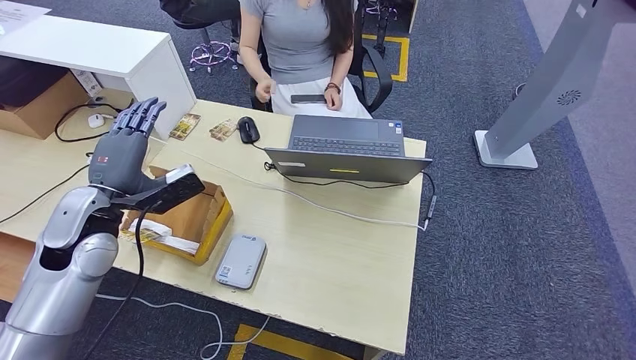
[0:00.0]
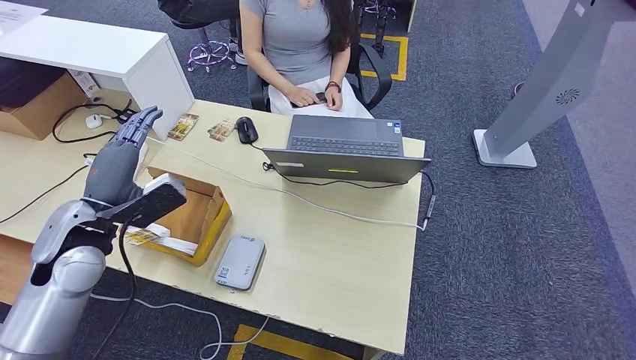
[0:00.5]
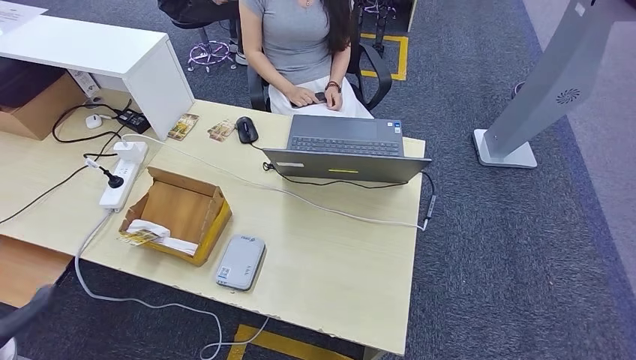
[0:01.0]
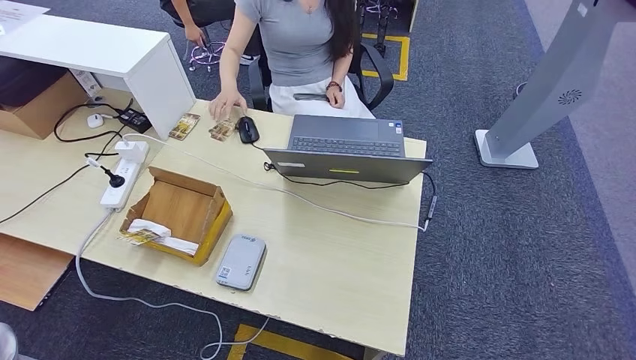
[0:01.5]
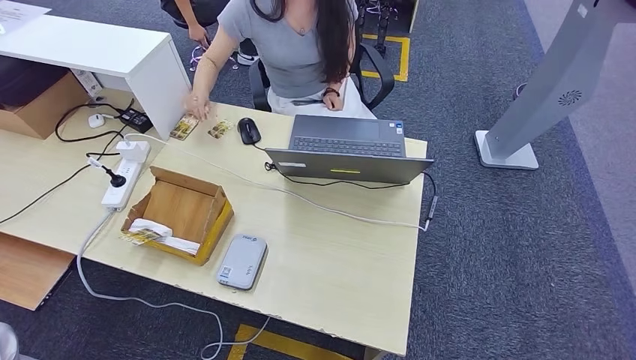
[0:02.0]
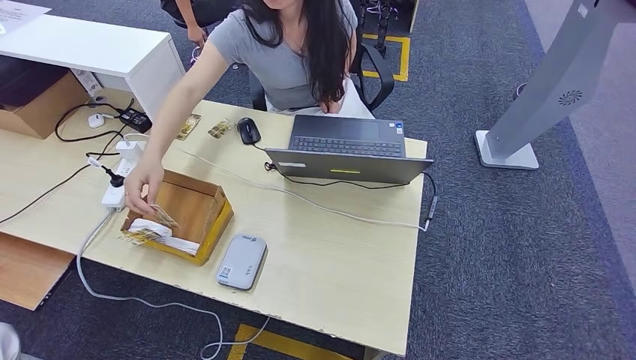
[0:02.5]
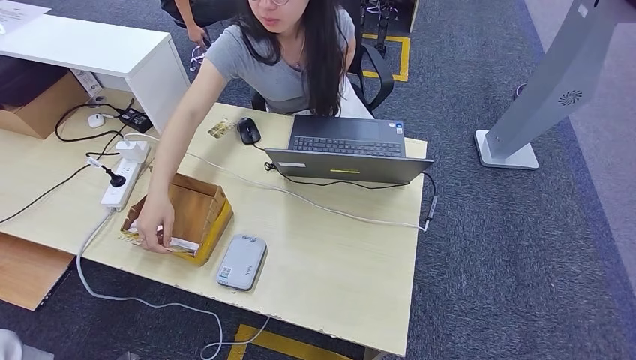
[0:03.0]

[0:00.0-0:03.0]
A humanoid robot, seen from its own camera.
Step, 0:00.0 to 0:03.0: Hand the room key to the person.
0:00.0 to 0:01.5: The left hand heads backward and downward, covering some 35 cm.
0:01.5 to 0:03.0: The left hand is displaced downward and to the right by about 25 cm.

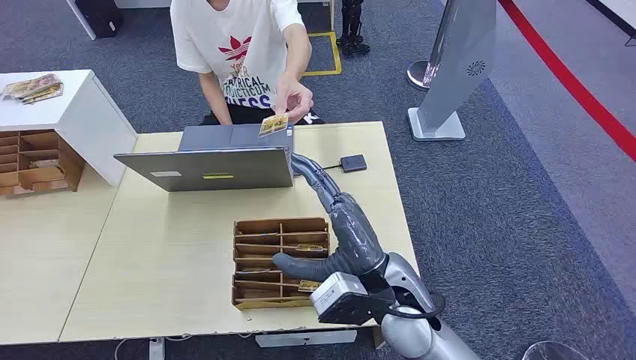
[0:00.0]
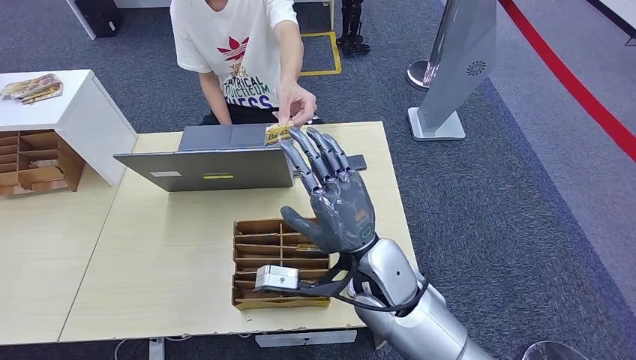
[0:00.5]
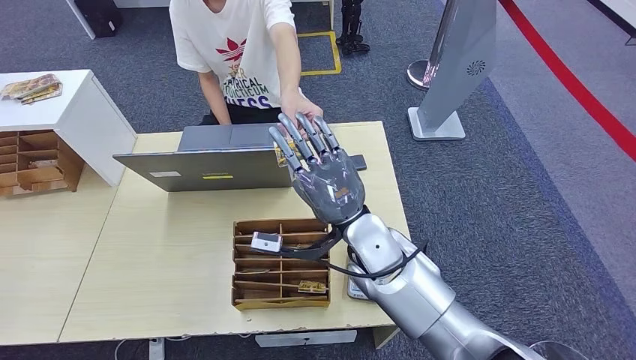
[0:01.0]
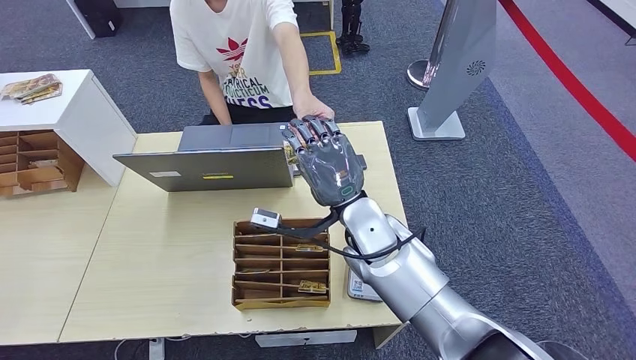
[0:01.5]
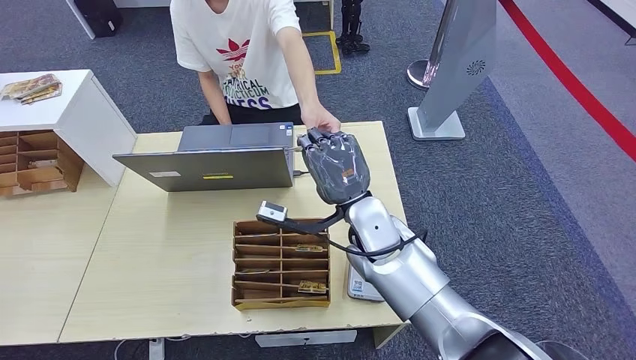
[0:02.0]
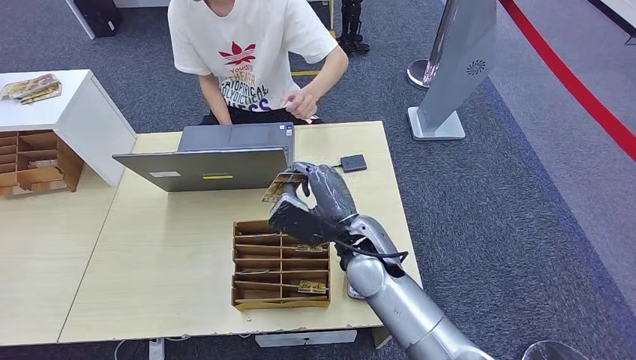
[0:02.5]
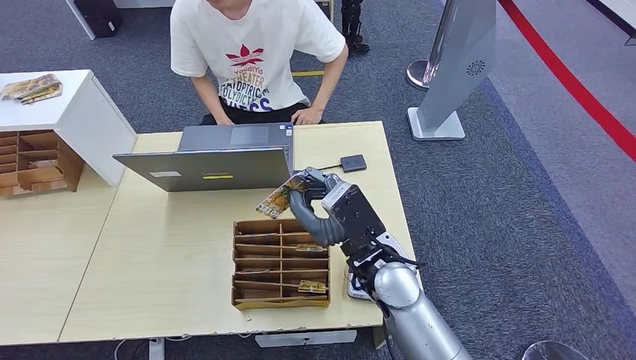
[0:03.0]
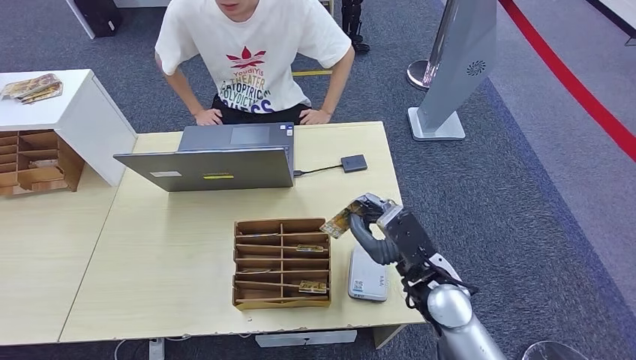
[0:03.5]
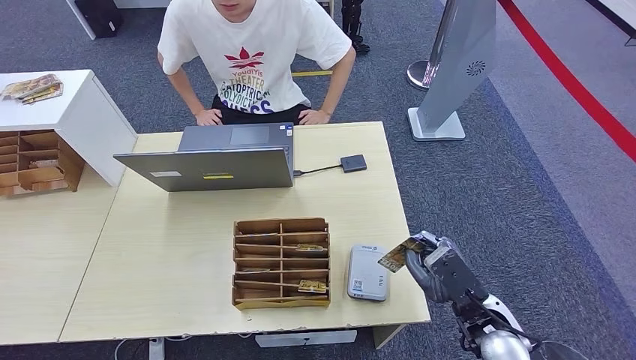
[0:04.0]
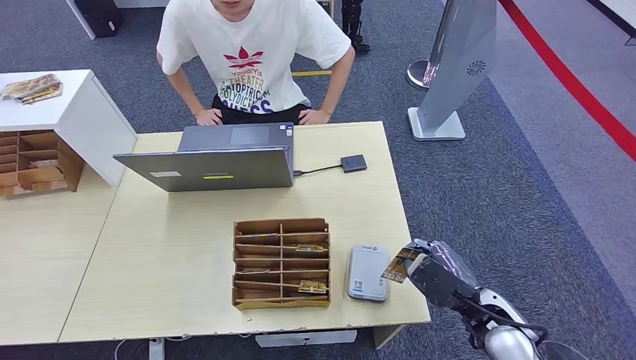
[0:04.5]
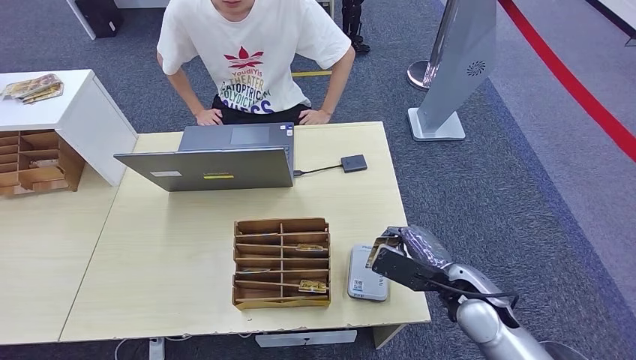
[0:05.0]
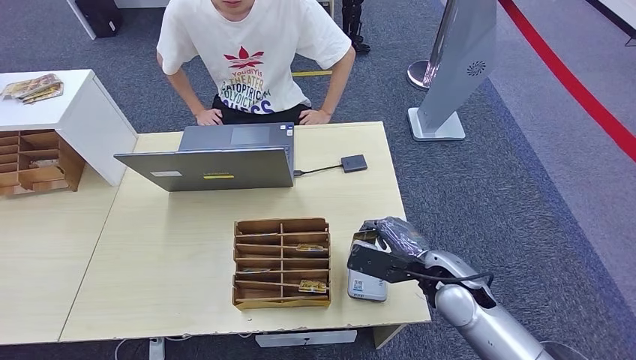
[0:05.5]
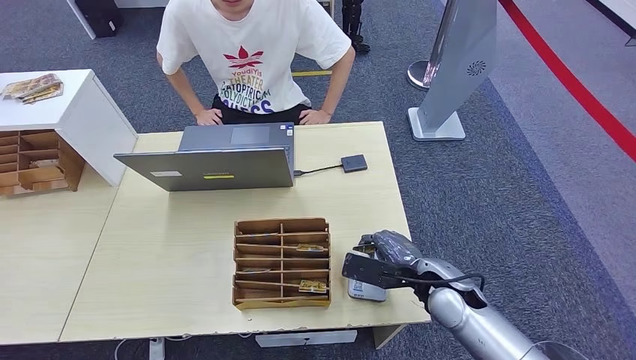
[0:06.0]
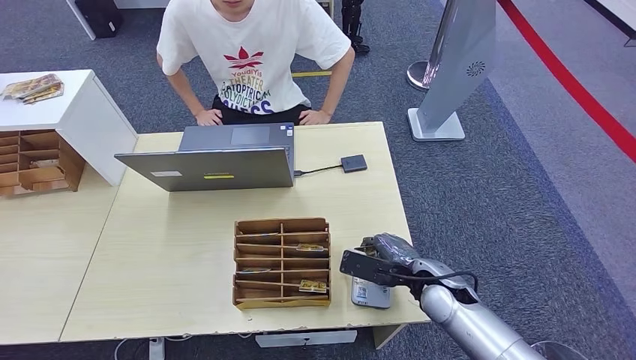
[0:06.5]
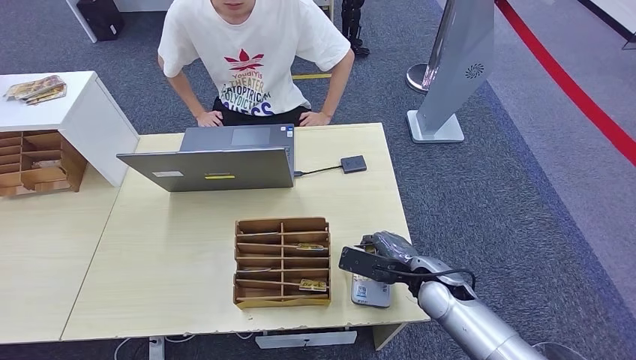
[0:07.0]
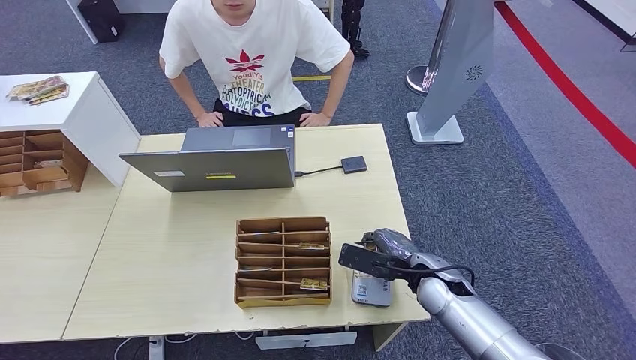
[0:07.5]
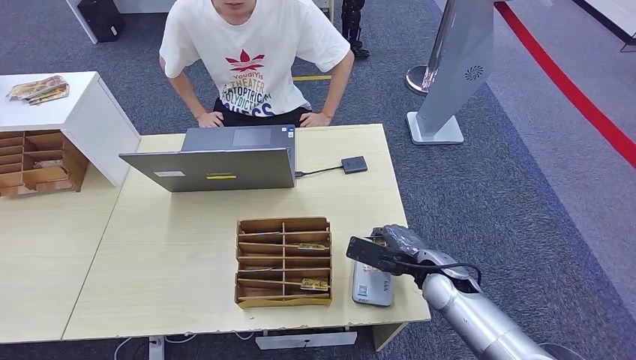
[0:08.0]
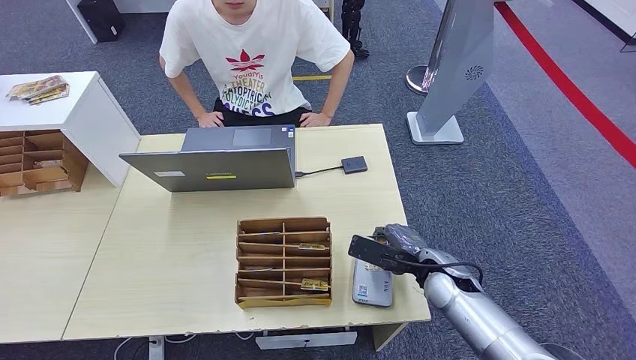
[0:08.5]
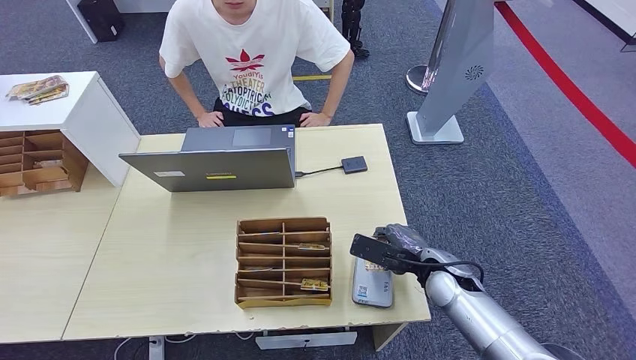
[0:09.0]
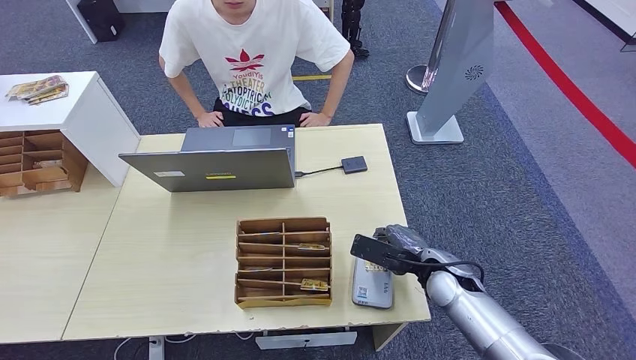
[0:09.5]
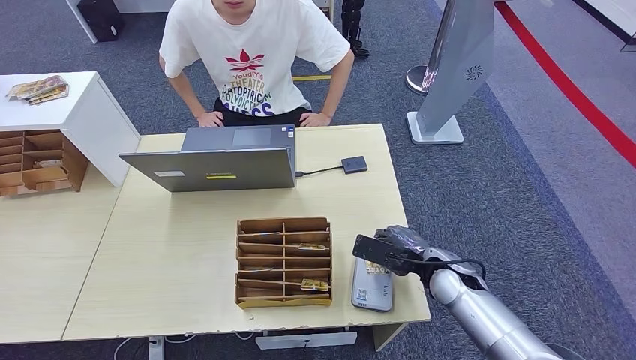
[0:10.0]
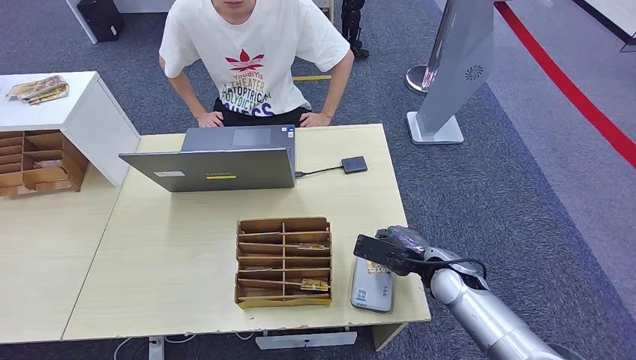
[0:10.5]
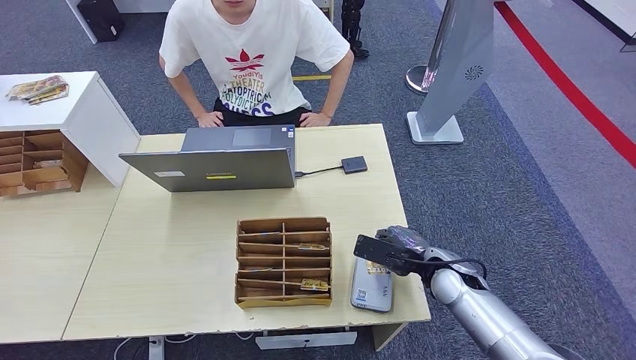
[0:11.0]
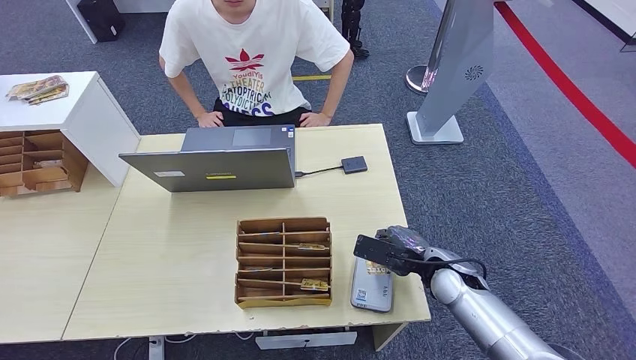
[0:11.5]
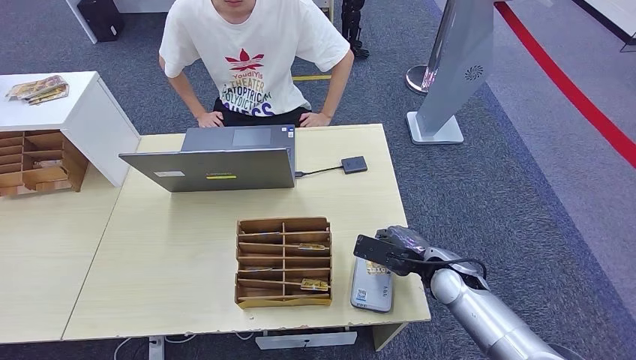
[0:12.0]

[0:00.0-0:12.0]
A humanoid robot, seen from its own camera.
Step, 0:00.0 to 0:01.5: Take the ID card from the person's hand.
Step, 0:02.0 to 0:04.0: Place the ID card on the card reader.
0:02.0 to 0:04.0: The right hand is displaced to the right, backward and downward by approximately 25 cm.
0:04.0 to 0:06.0: The right hand is displaced forward by approximately 5 cm.
0:06.0 to 0:08.0: The hands stay close to where they were, moving slightly.
0:08.0 to 0:10.0: The two hands keep their place.
0:10.0 to 0:12.0: Neither hand changes place.

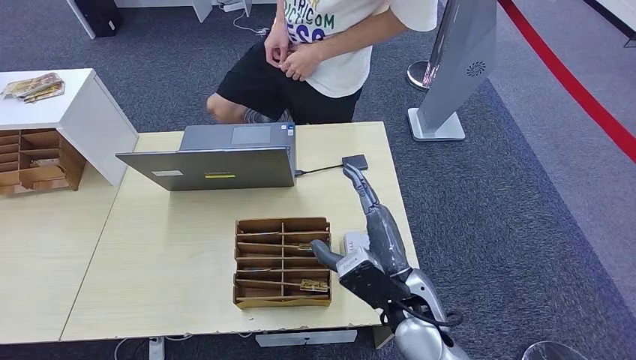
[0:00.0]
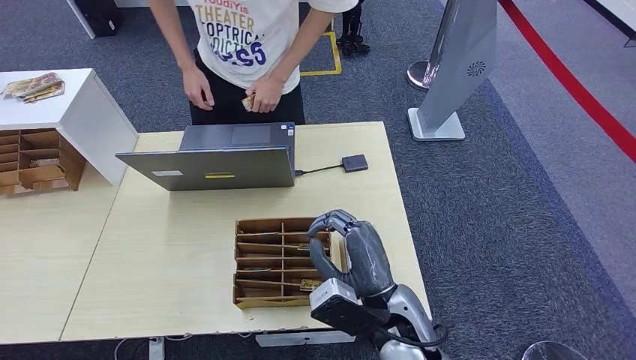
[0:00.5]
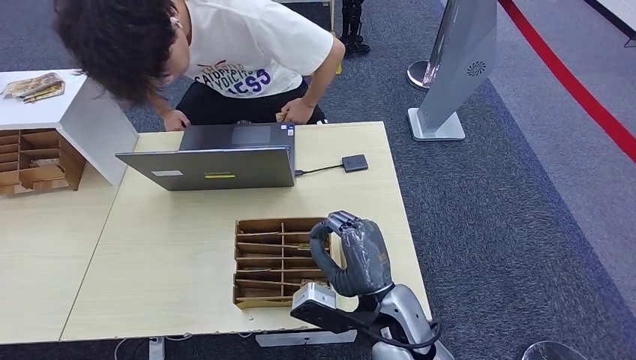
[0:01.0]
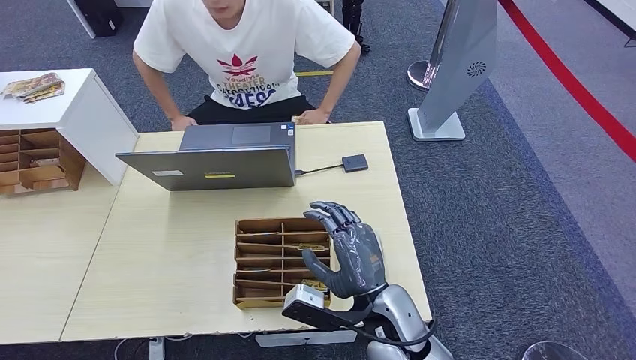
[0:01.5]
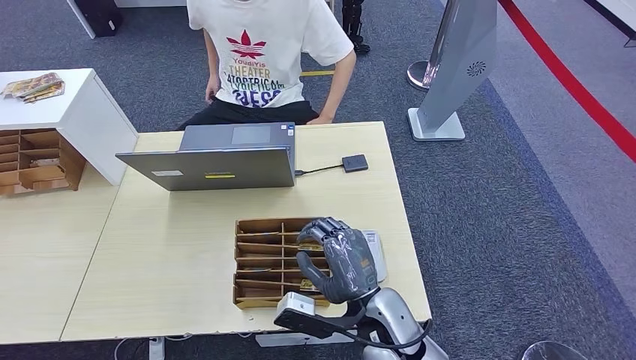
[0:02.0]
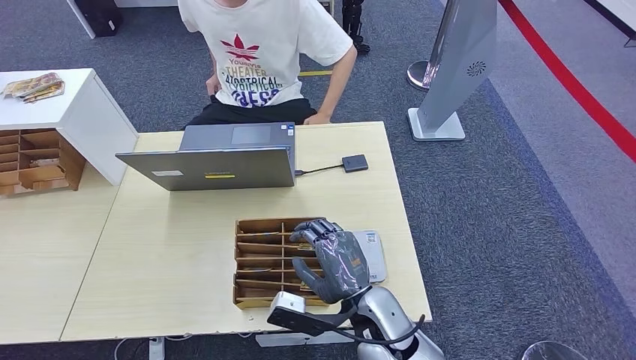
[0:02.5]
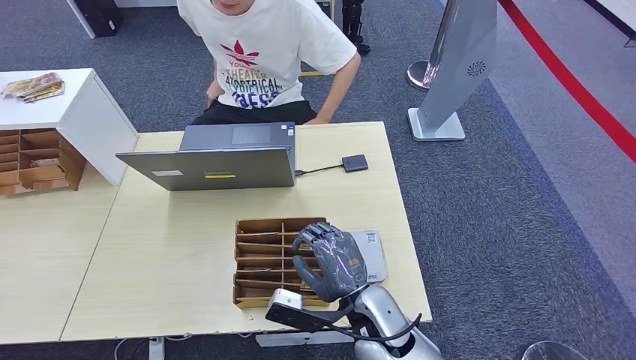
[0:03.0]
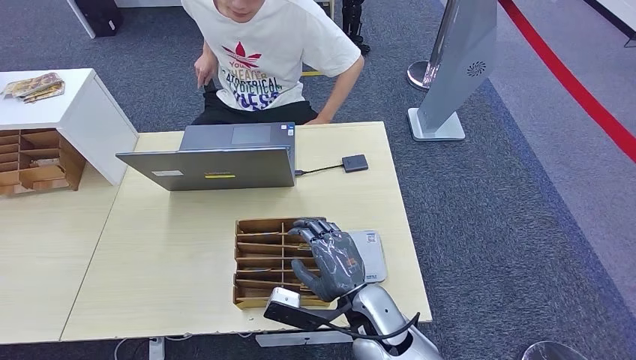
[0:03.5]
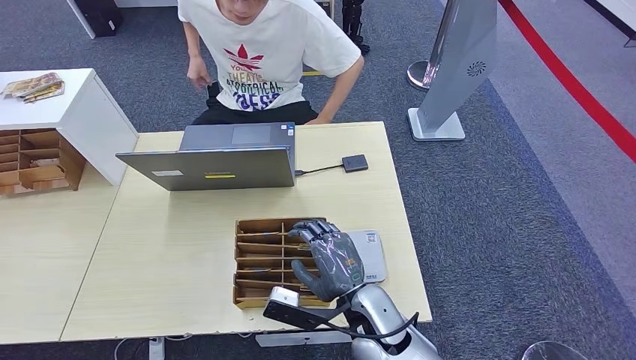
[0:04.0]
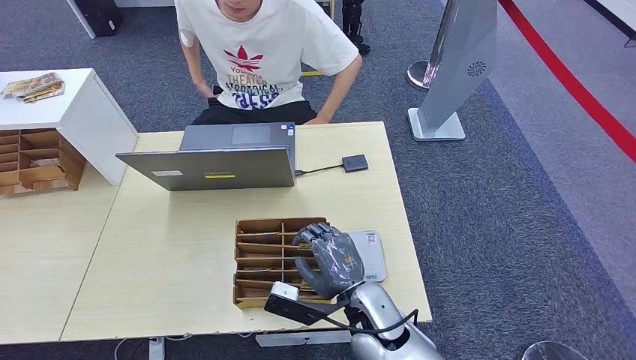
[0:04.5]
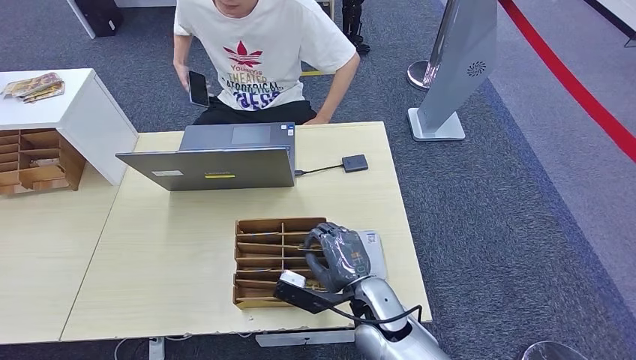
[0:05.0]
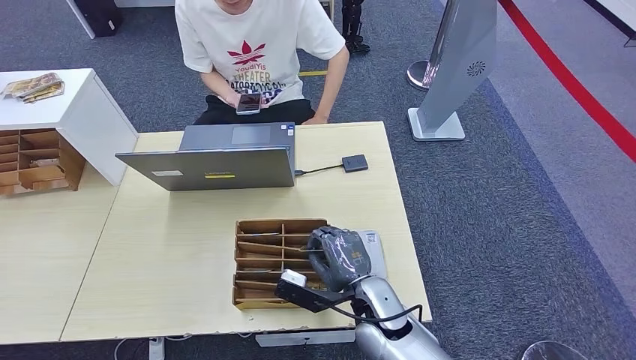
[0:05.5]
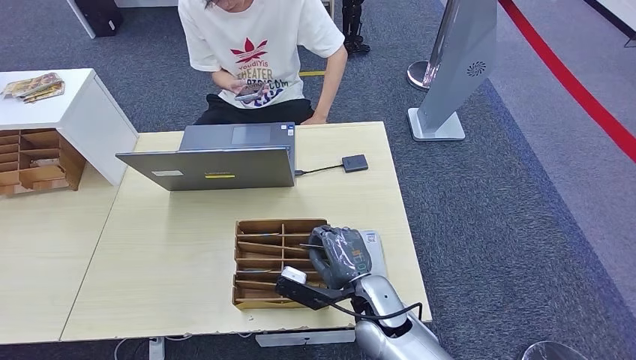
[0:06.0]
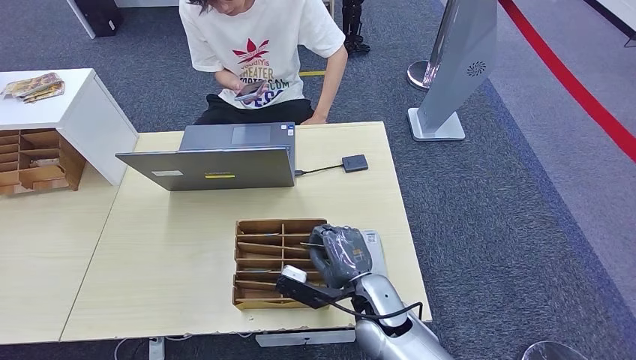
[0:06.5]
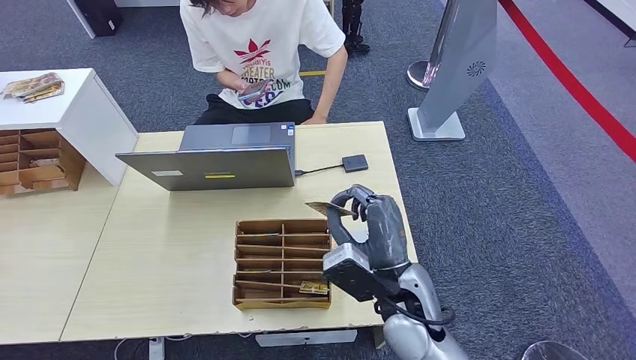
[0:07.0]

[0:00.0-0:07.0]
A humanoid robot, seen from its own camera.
Step, 0:00.0 to 0:04.0: Pick up the room key from the key card box.
0:00.0 to 0:02.0: The right hand shifts by roughly 5 cm.
0:02.0 to 0:05.0: The hands stay close to where they were, moving slightly.
0:05.0 to 0:07.0: The right hand shifts some 10 cm upward.
